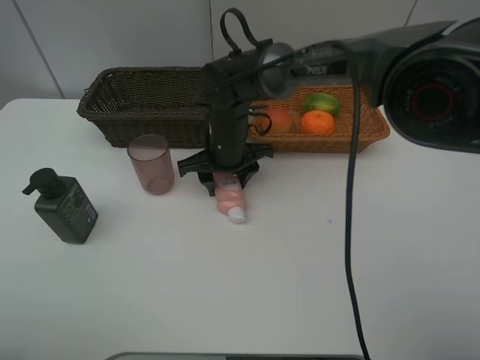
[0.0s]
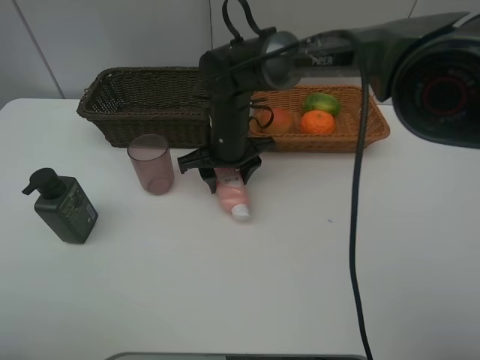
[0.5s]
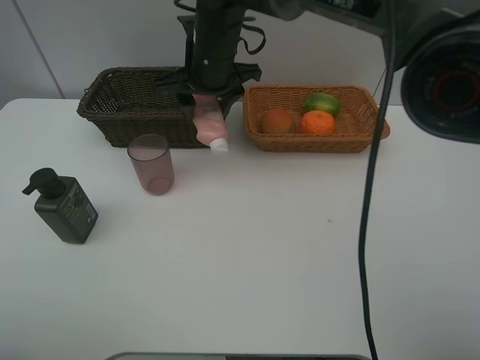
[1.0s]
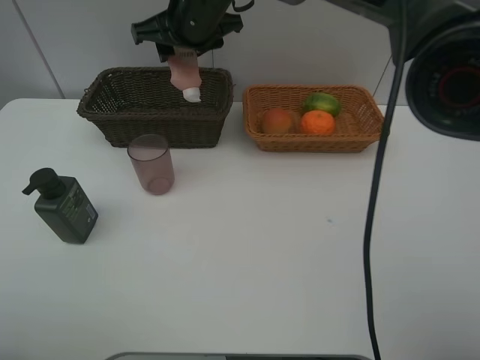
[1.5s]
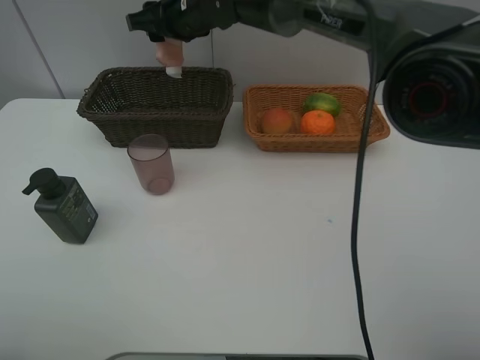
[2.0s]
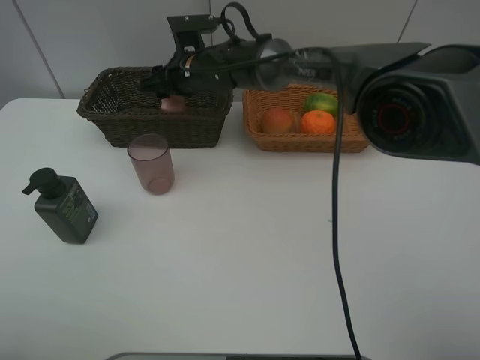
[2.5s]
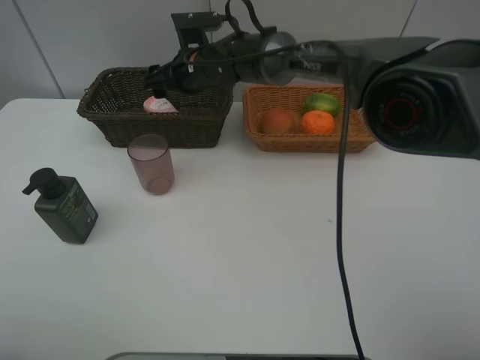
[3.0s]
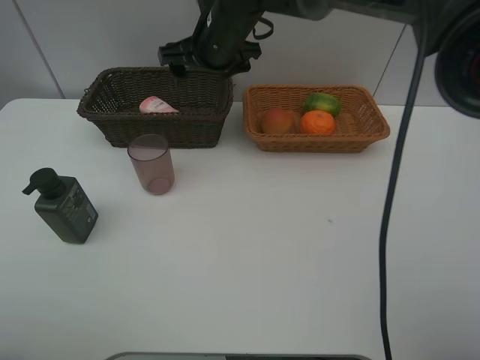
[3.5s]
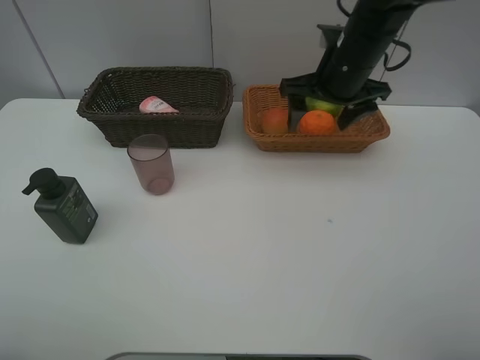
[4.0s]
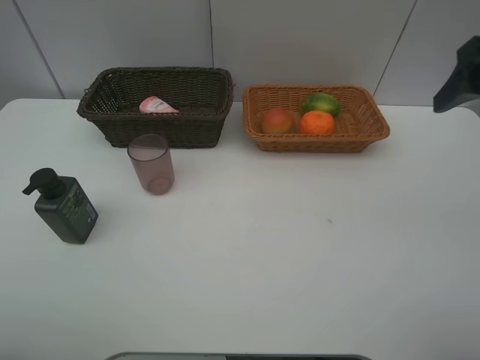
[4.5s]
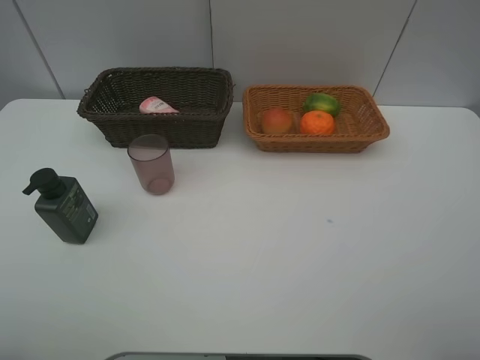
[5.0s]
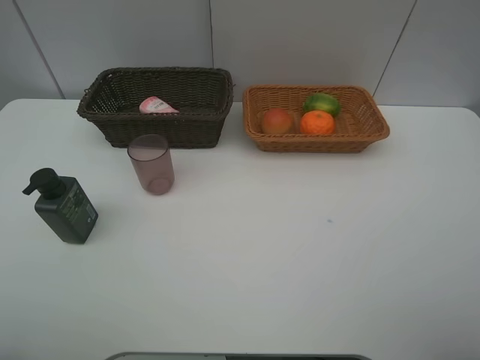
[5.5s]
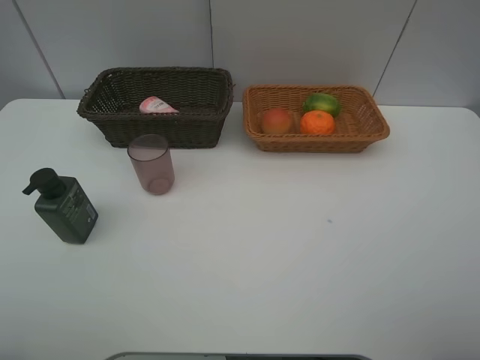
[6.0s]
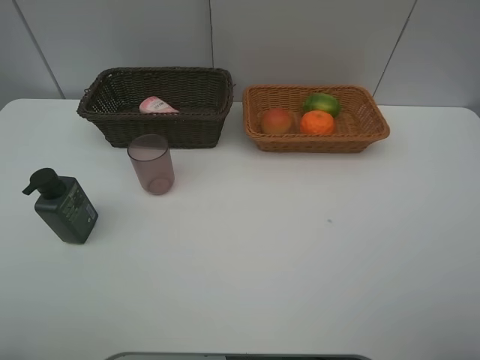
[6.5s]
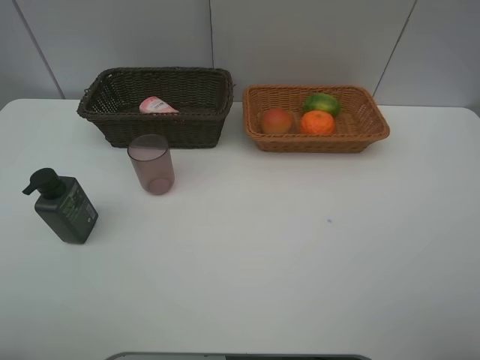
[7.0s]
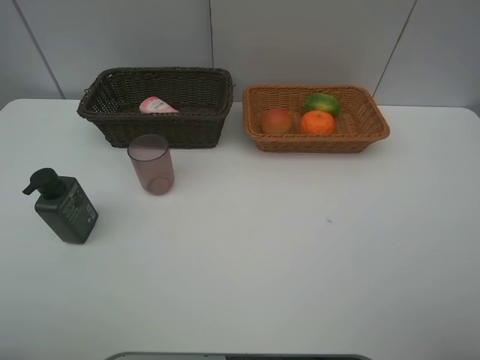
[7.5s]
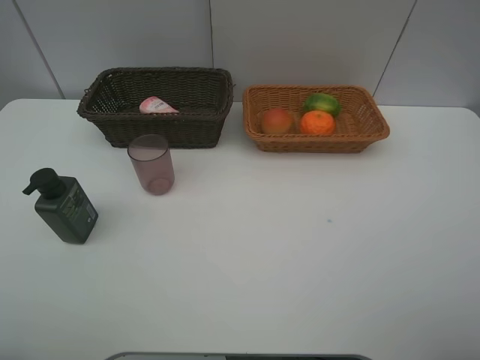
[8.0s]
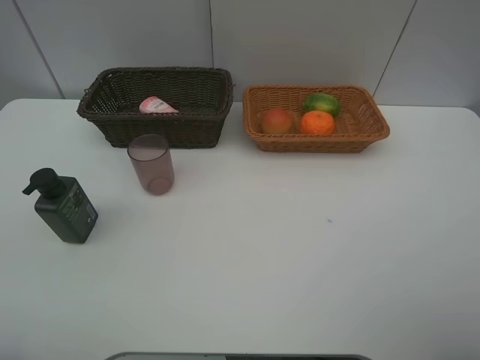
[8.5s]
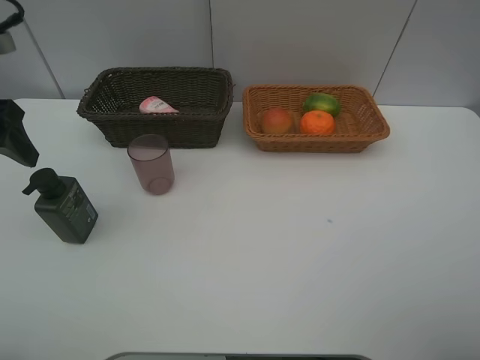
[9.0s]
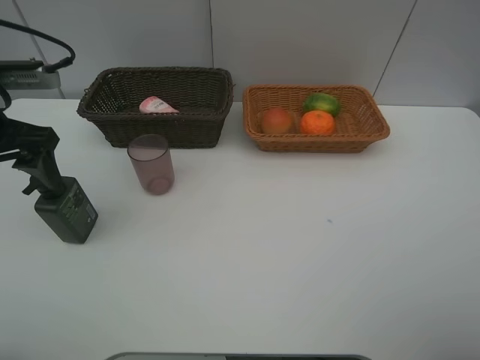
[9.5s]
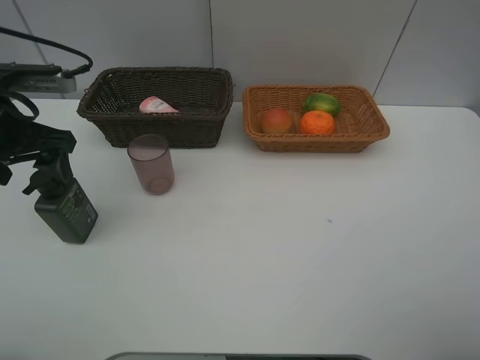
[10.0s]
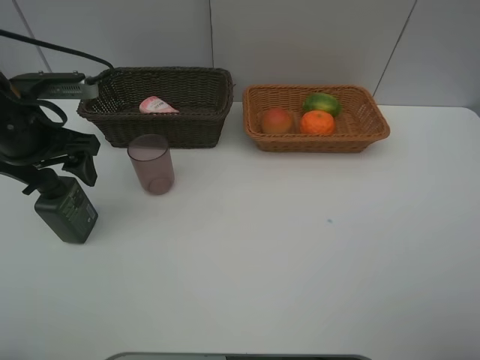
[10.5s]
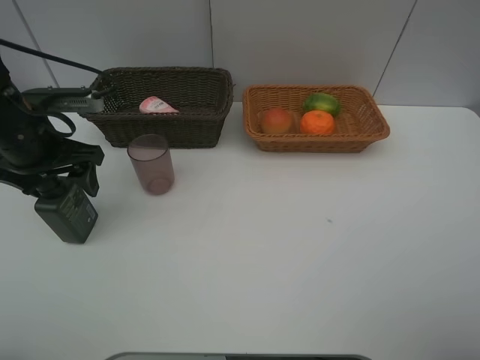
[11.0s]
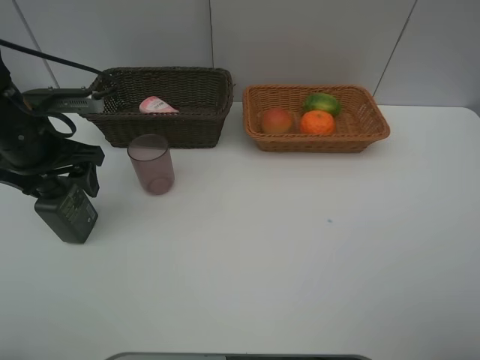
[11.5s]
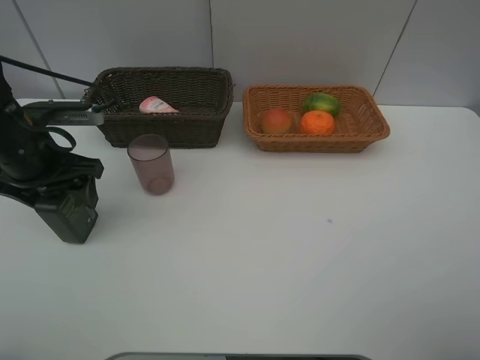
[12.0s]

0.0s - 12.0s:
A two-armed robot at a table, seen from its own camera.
Task of the whole recording: place multiple objects separately in different baskets.
0.0s - 2.0s: The right gripper goes about 15 cm upward and forward.
2.0s - 4.0s: The right gripper heads to the right and backward, covering some 25 cm, and opens its fingers.
4.0s - 6.0s: The right gripper moves backward, roughly 35 cm.
8.0s - 10.0s: The left gripper goes some 25 cm forward.
10.0s - 12.0s: The left gripper goes approximately 5 cm downward.

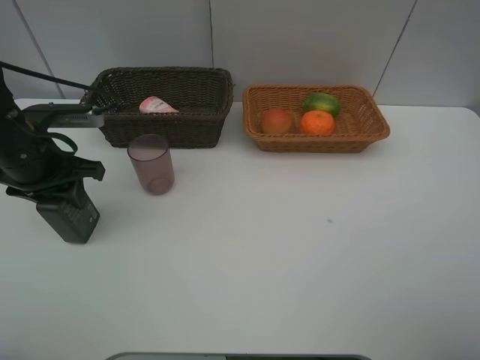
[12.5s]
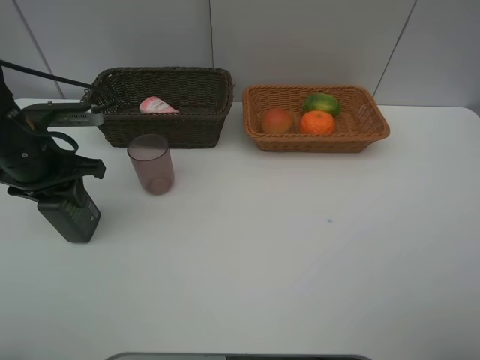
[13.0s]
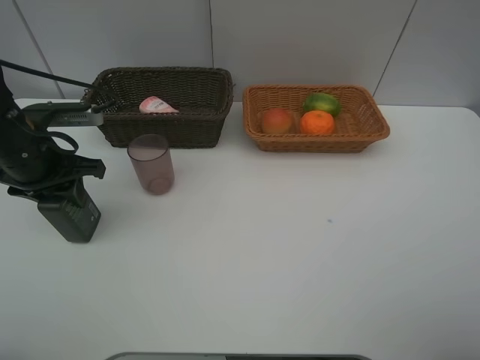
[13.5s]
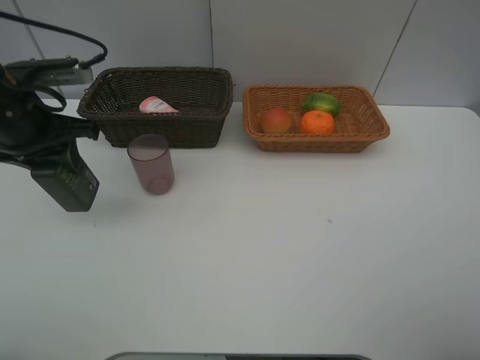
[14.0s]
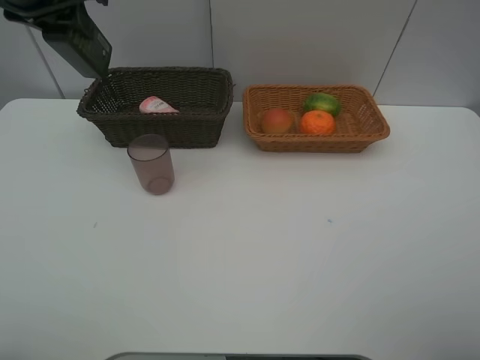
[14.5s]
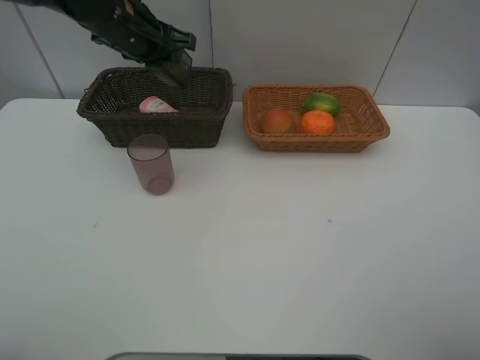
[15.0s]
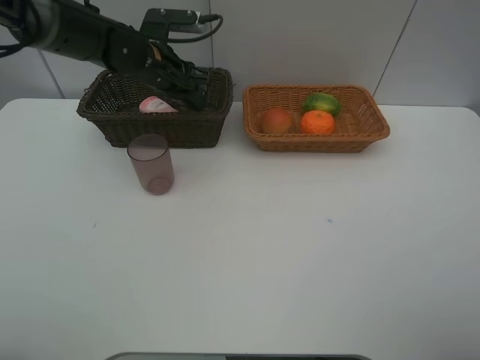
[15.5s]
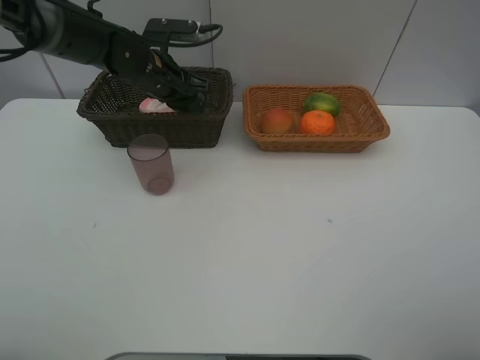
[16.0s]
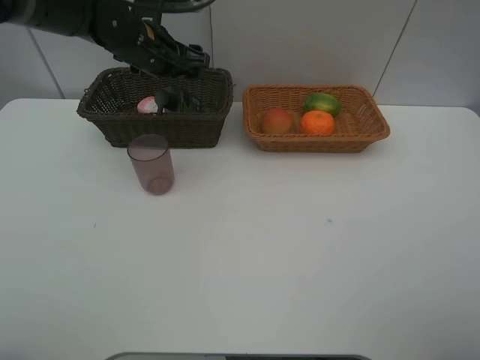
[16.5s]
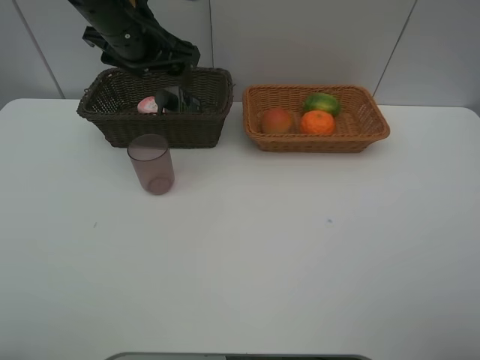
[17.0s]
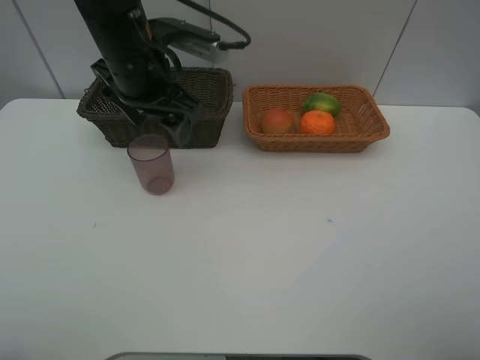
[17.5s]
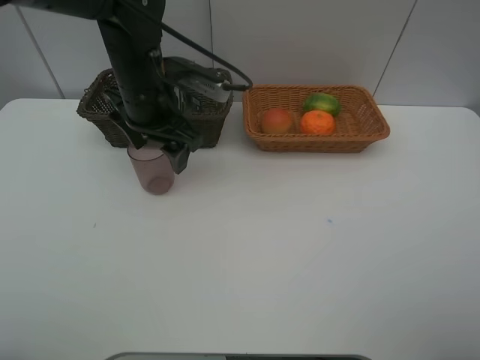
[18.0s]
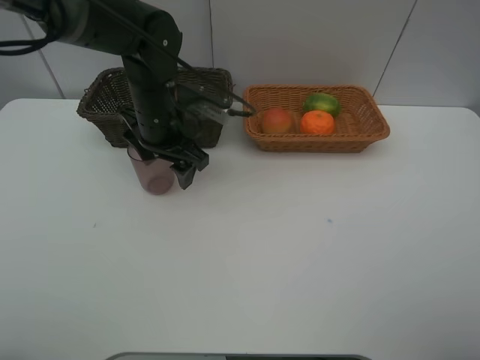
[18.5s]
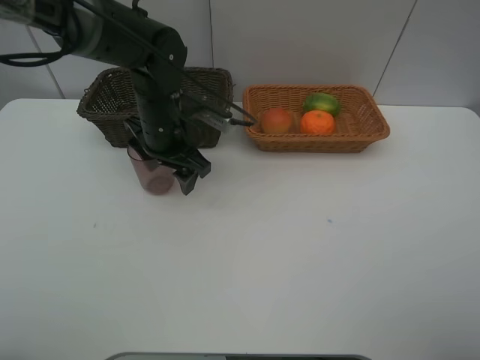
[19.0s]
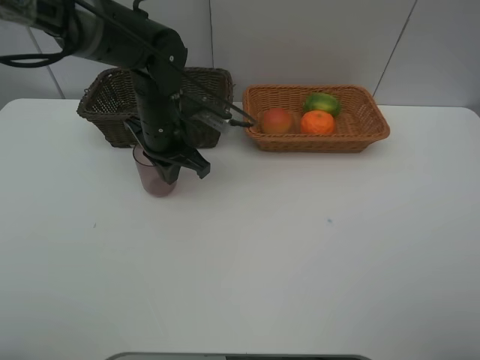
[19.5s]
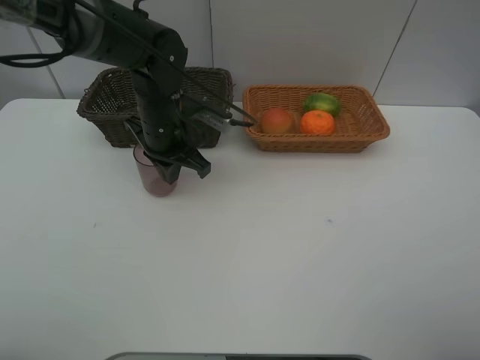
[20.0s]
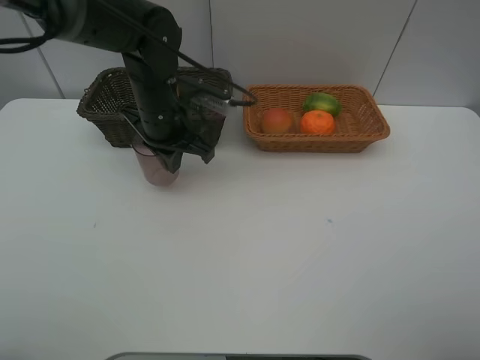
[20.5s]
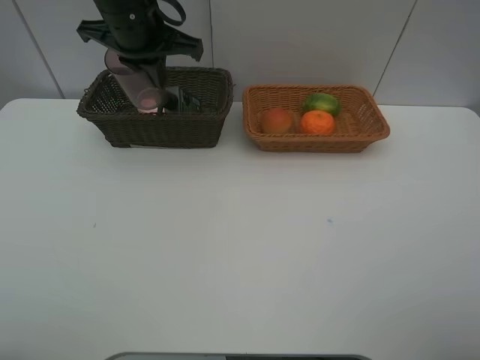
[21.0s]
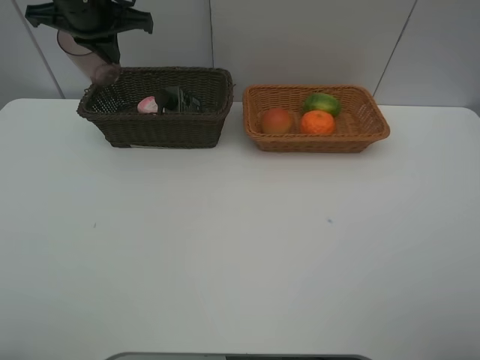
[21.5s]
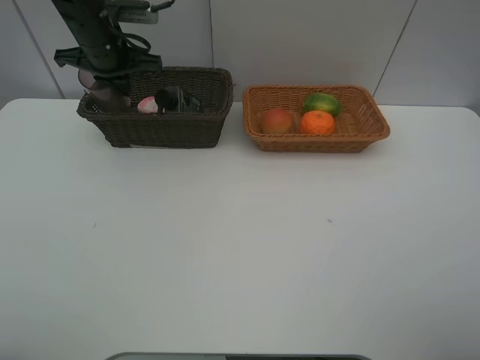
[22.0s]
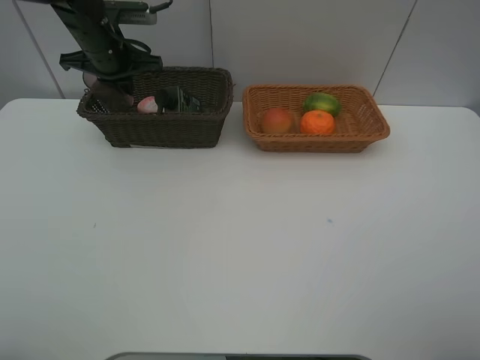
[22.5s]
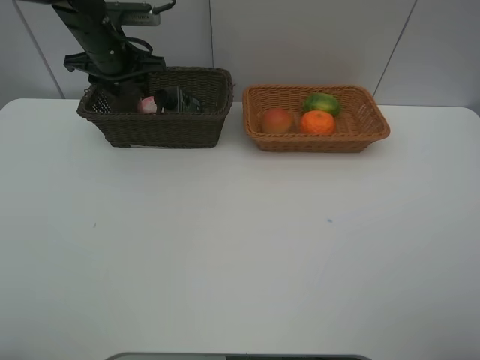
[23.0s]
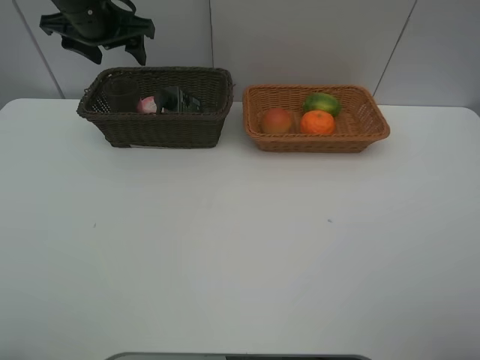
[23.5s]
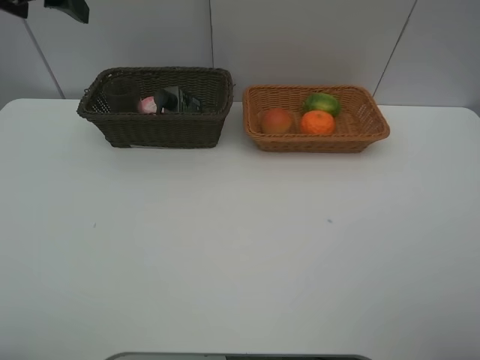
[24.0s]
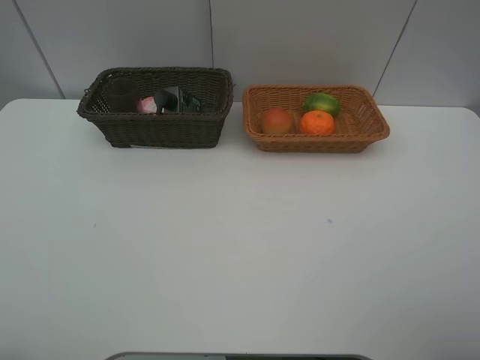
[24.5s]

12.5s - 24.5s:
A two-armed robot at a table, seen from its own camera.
Task of the whole recording: place multiple objects separately in different baskets.
12.5s - 14.5s: The left gripper heads upward and forward, covering roughly 20 cm.
14.5s - 16.5s: The left gripper is displaced downward, to the right and forward by roughly 15 cm, and opens.
16.5s - 18.5s: The left gripper is displaced backward and downward by approximately 10 cm.
18.5s - 20.5s: The left gripper closes up.
20.5s - 22.5s: The left gripper shifts some 15 cm to the left and forward.
22.5s - 24.5s: The left gripper goes approximately 40 cm backward and upward, and opens up.

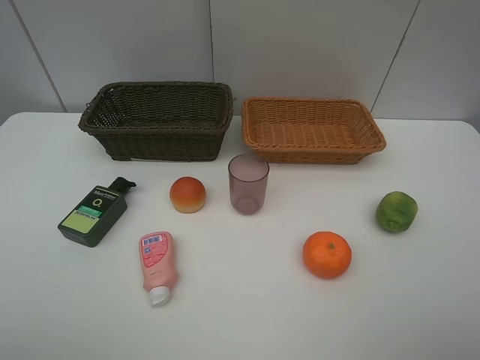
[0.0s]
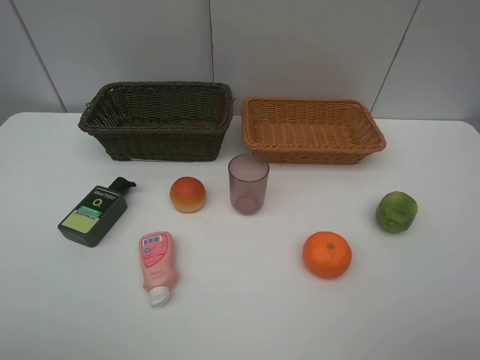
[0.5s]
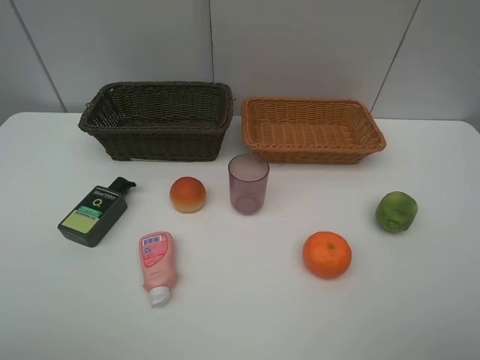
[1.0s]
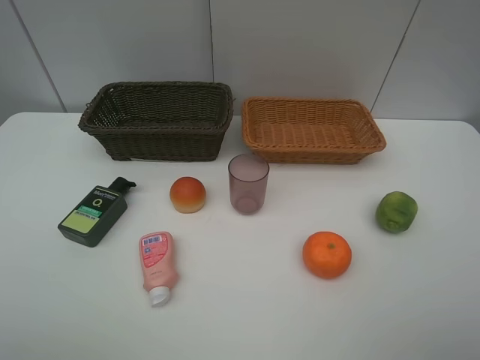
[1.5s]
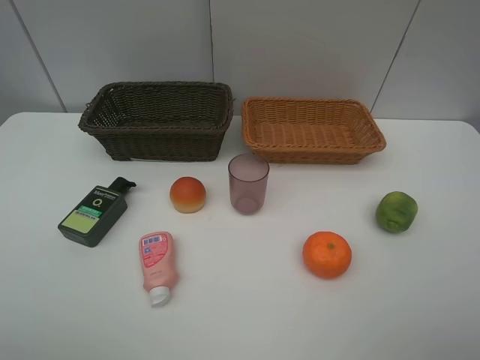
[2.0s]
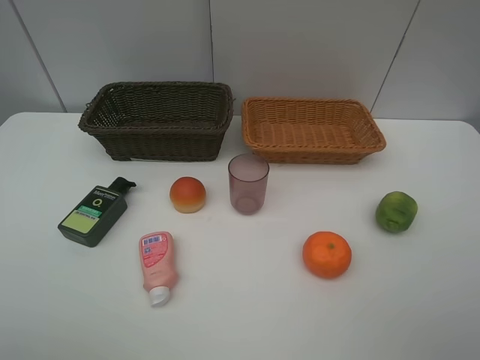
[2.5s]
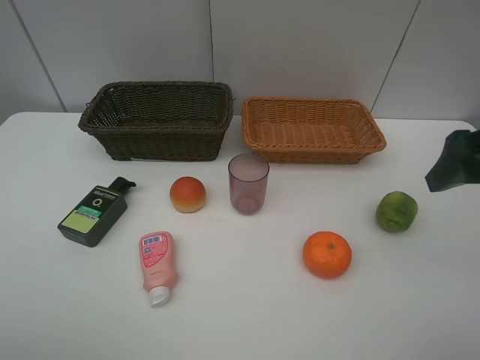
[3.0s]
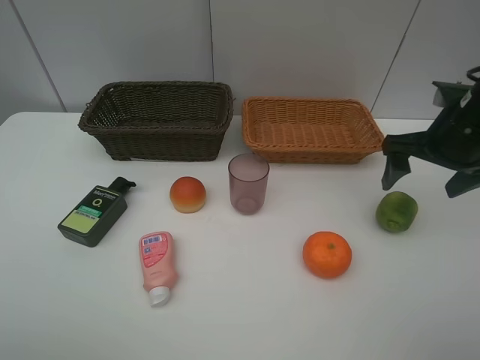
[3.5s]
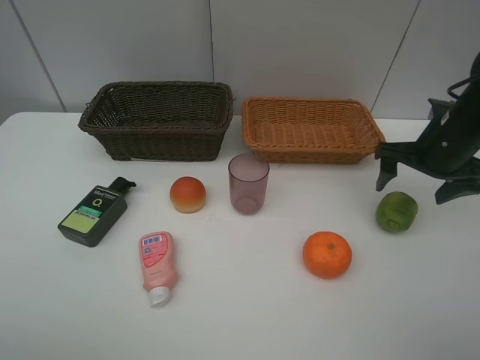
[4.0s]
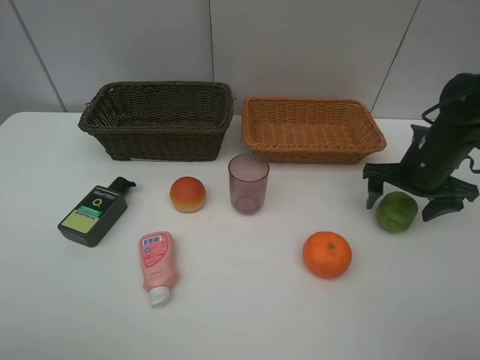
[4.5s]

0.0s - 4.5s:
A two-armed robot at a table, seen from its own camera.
Task of the whole recording: place multiple objects separately in different baskets.
0.0s - 2.0s: Both grippers stay put.
2.0s - 4.5s: The right gripper goes roughly 35 cm forward and downward.
